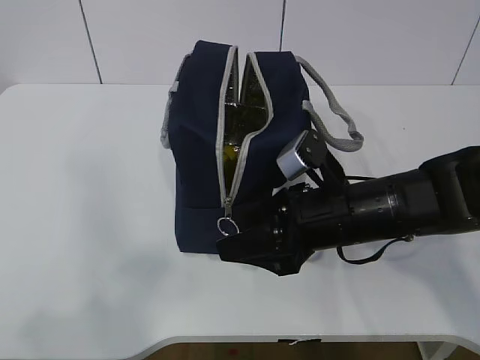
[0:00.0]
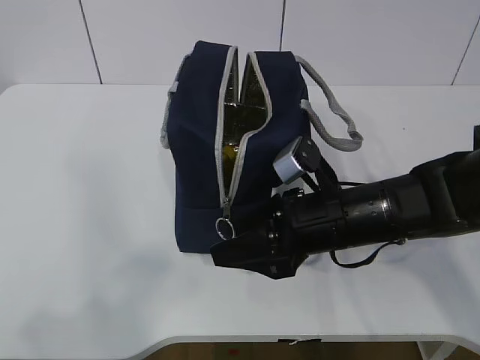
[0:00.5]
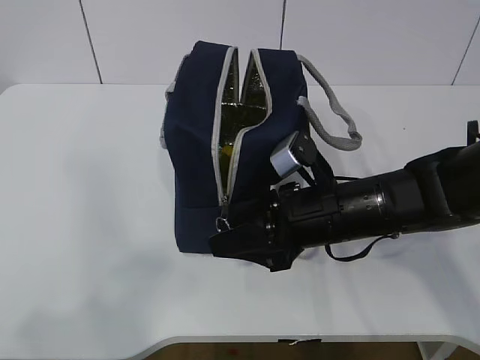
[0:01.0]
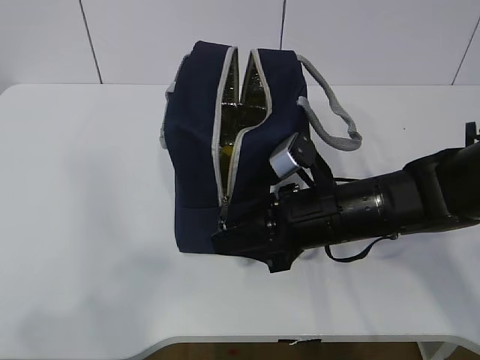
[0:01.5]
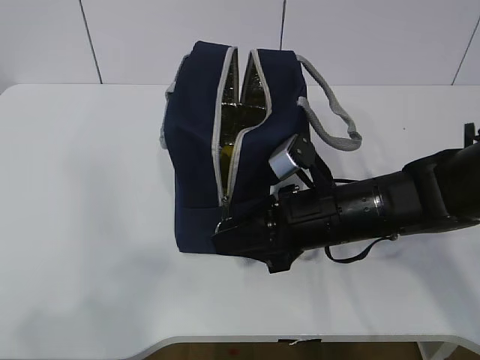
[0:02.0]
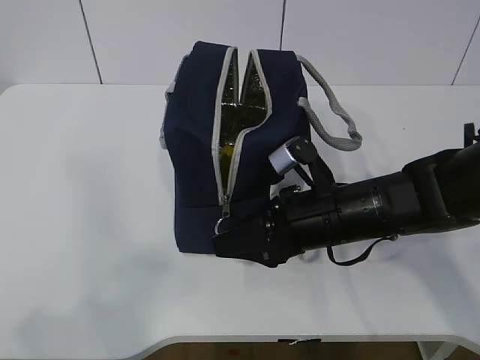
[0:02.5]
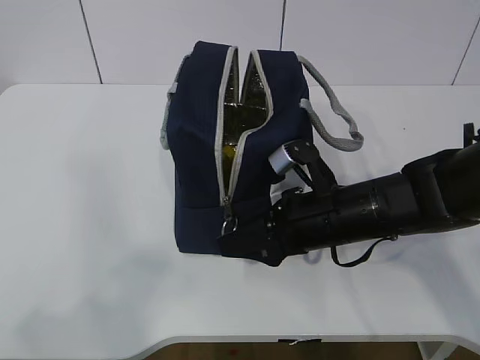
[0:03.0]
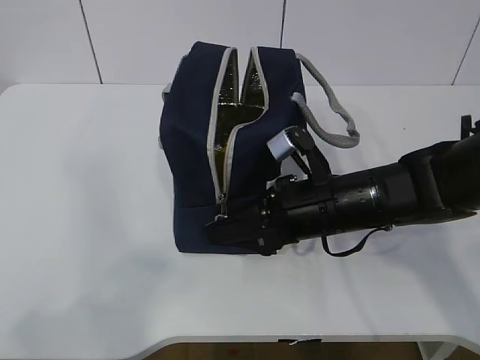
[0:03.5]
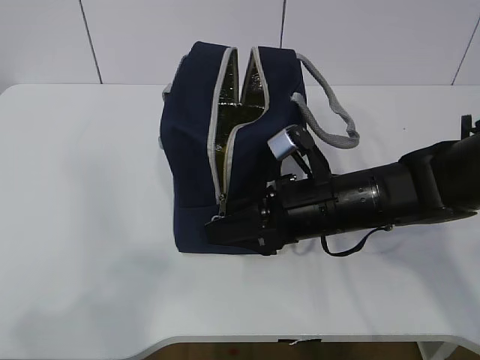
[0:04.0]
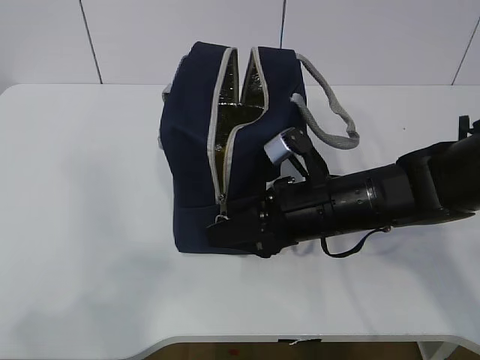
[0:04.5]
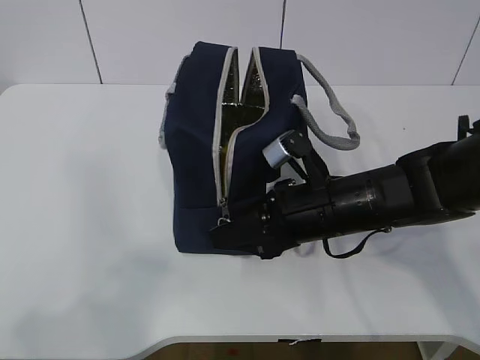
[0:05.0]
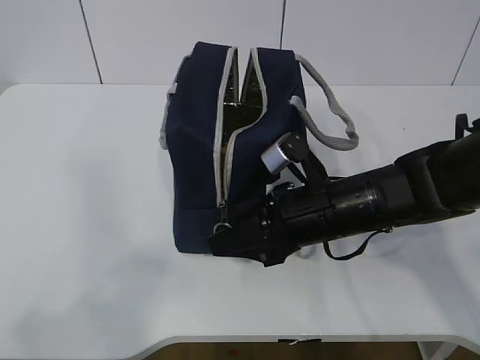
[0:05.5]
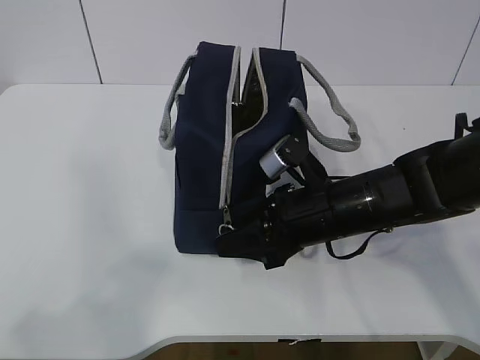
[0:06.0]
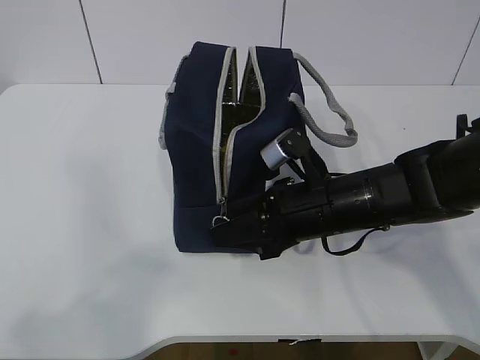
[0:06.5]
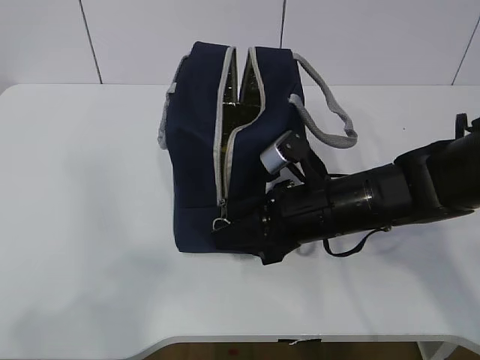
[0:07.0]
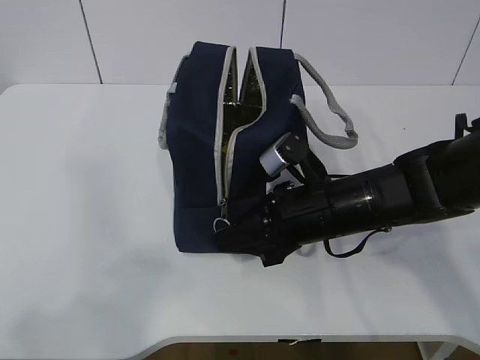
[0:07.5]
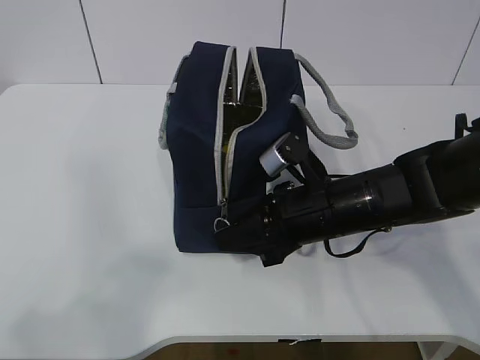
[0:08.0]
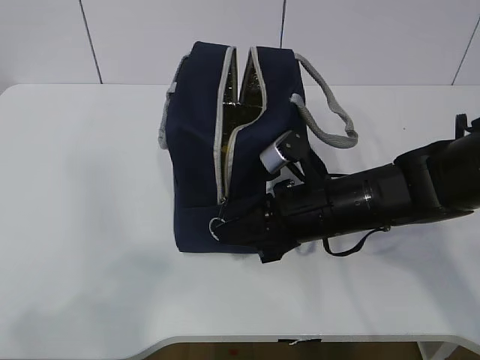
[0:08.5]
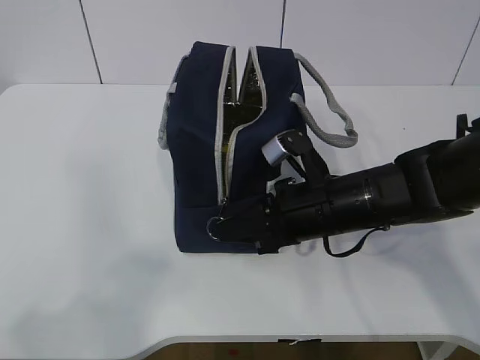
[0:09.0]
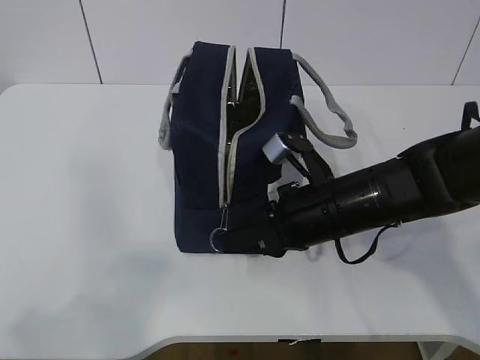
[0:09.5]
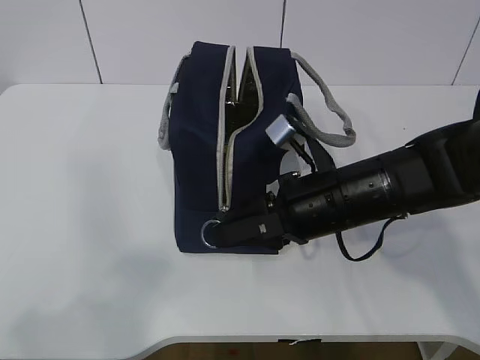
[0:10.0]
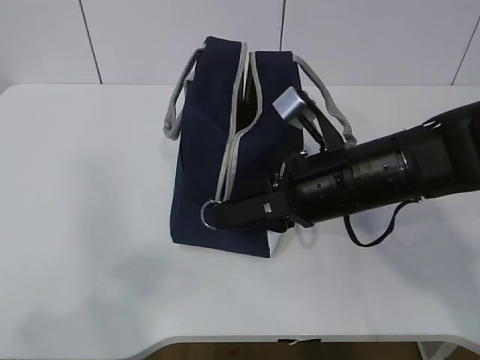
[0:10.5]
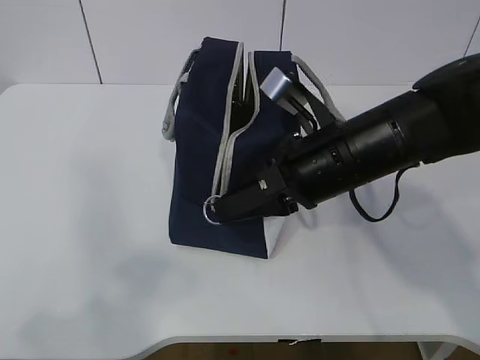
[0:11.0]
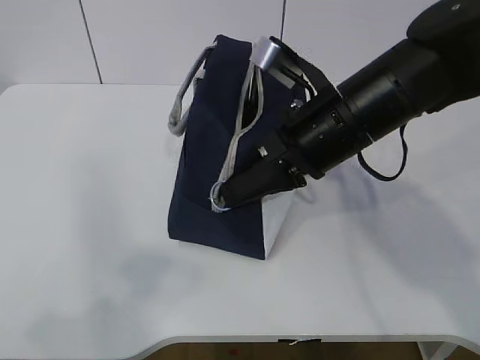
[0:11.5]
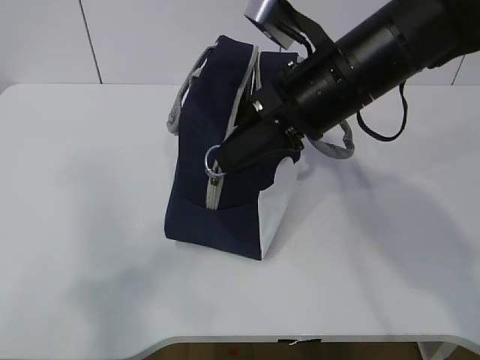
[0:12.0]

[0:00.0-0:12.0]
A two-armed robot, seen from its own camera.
Step, 0:05.5 to 0:09.0: Pull the zipper with your right hand.
0:00.0 to 0:02.0: The right gripper closes.
0:02.0 to 0:06.0: The grippers make only small movements.
0:06.0 to 0:08.0: The two grippers keep their place.
0:08.0 to 0:10.0: The grippers move only a little.
0:10.0 to 0:12.0: The right gripper moves upward, about 10 cm.

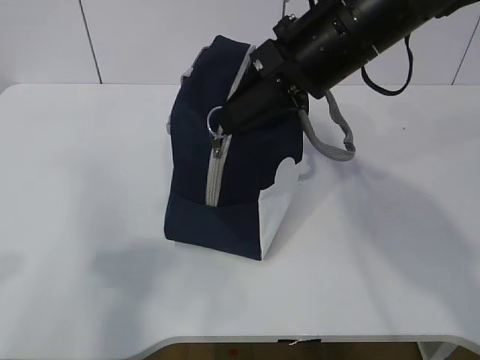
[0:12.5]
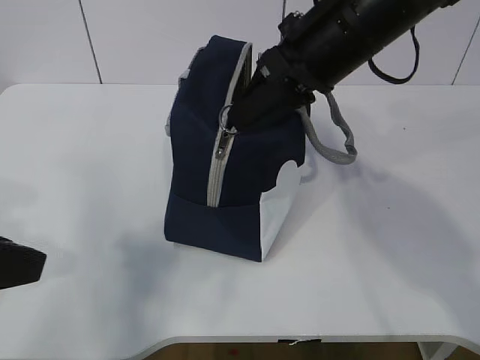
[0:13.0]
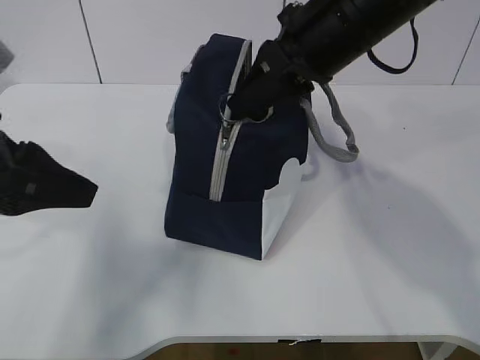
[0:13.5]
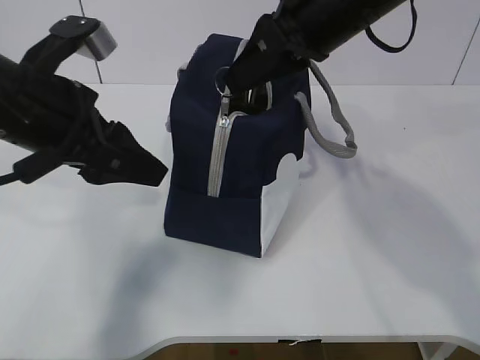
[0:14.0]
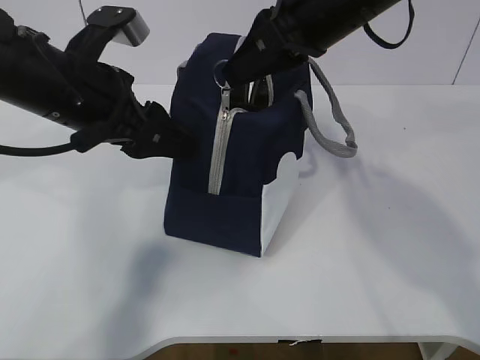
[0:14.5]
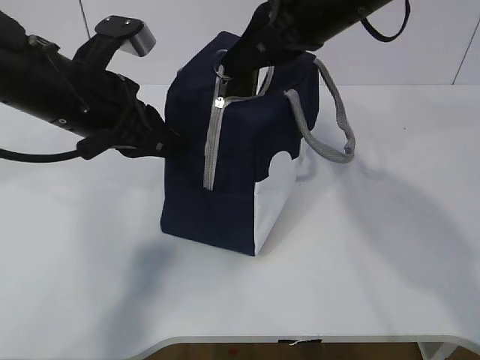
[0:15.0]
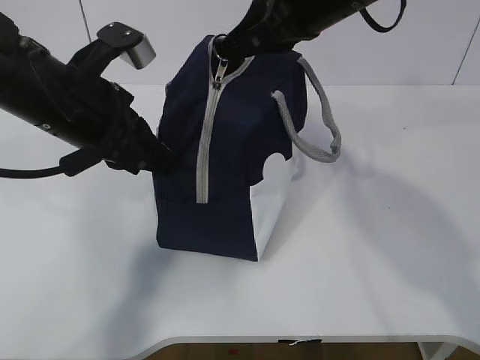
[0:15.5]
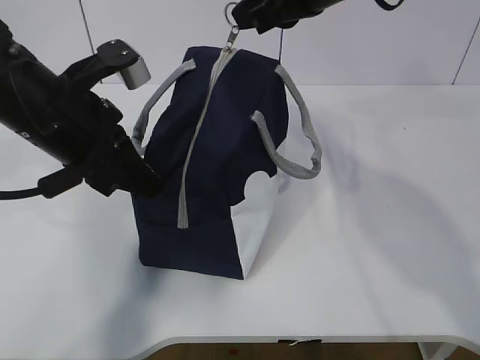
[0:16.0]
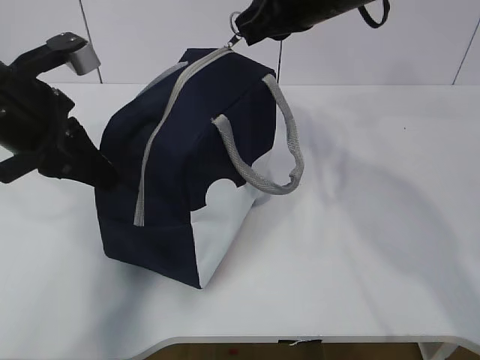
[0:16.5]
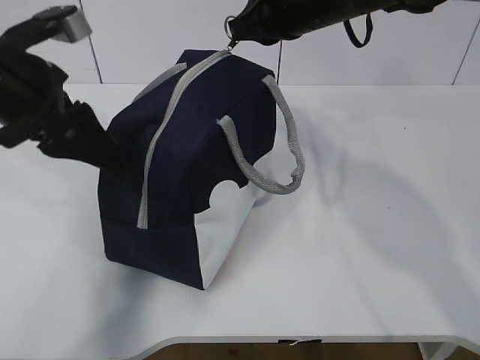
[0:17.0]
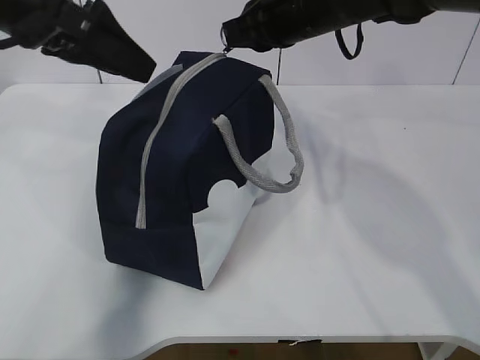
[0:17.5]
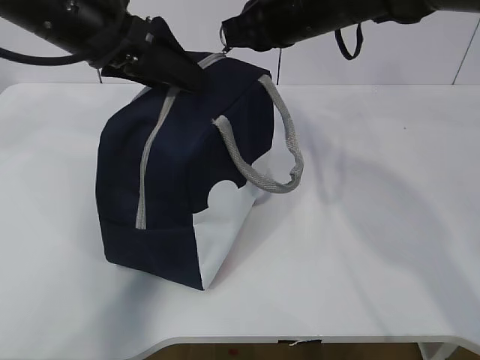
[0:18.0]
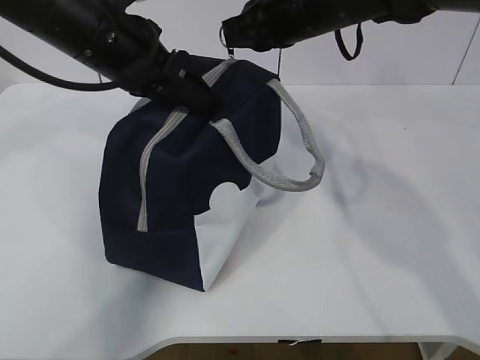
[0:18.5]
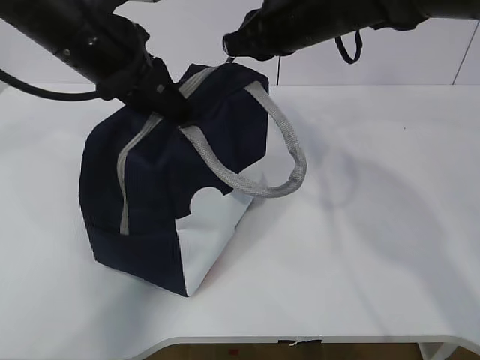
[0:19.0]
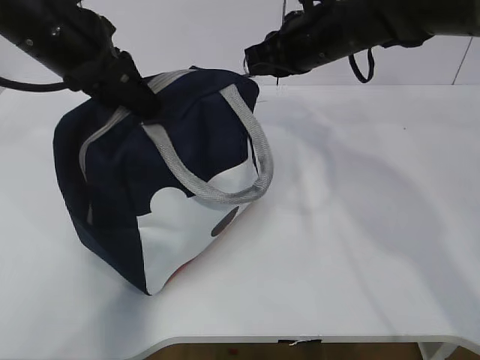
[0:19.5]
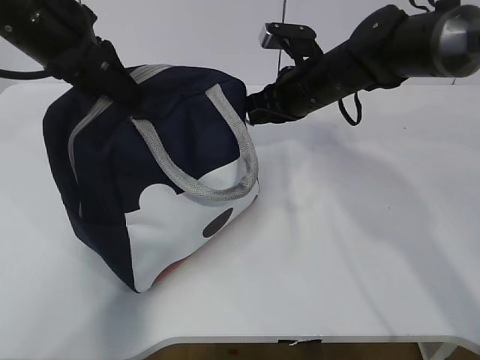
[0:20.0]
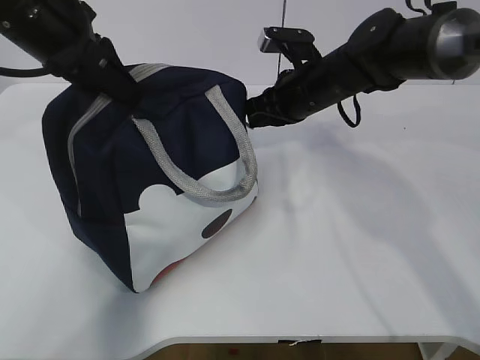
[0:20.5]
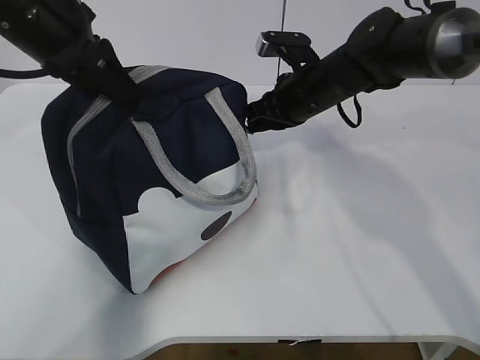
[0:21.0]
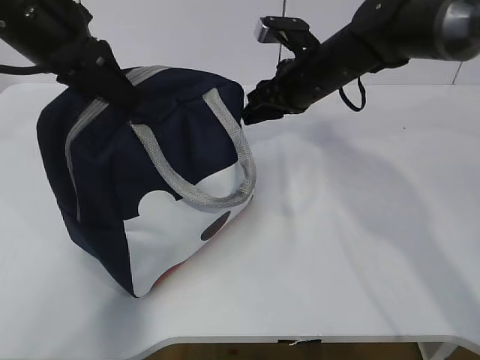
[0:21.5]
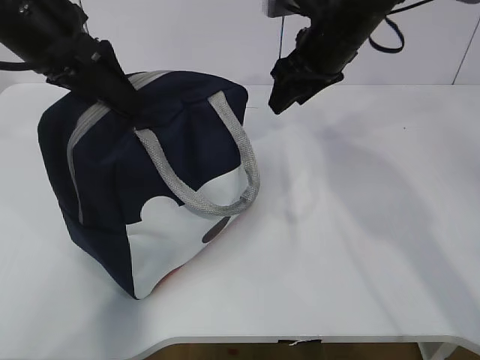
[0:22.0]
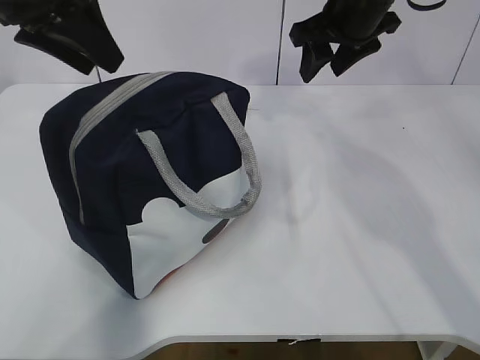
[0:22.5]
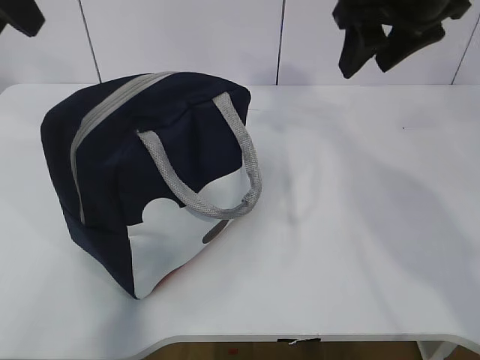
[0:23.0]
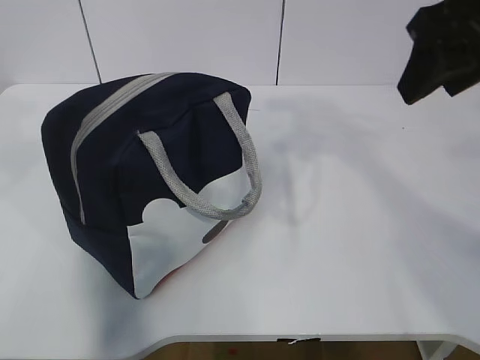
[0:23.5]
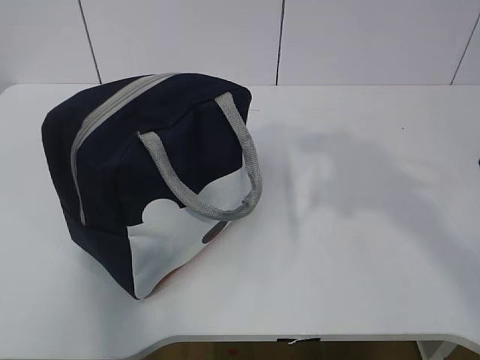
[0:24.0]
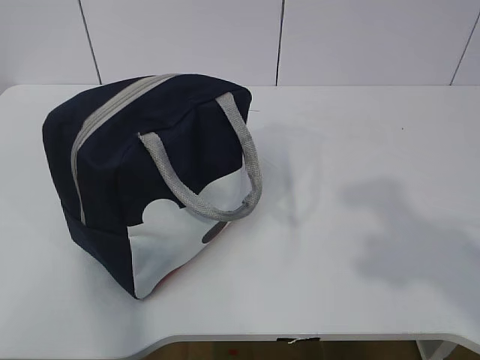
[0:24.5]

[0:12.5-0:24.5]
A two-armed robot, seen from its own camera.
0:12.5 to 0:14.5: The left gripper is displaced forward and to the right by roughly 25 cm.
0:14.5 to 0:16.5: The left gripper travels to the left by about 5 cm, and closes up. The right gripper moves forward, roughly 5 cm.
0:16.5 to 0:18.5: The left gripper shifts approximately 10 cm to the right and forward, and opens.
0:18.5 to 0:20.5: The right gripper moves downward, approximately 10 cm; the left gripper travels to the left by some 5 cm, and closes its fingers.
0:20.5 to 0:22.5: The left gripper opens up. The right gripper is displaced upward by some 10 cm, and opens.
0:22.5 to 0:24.5: The two grippers go about 35 cm backward.

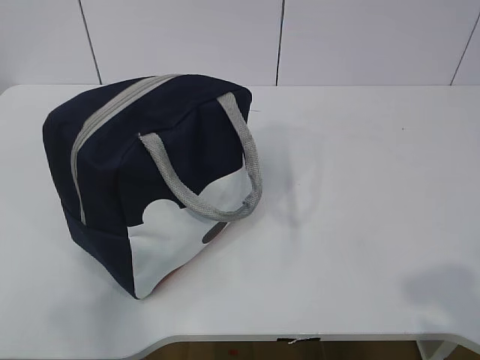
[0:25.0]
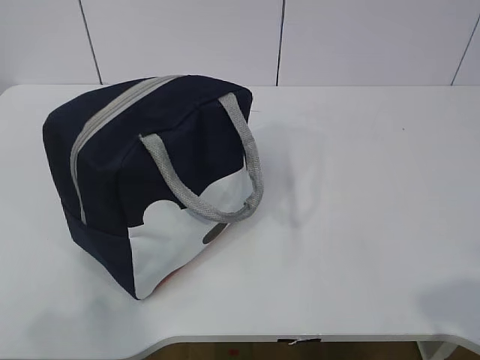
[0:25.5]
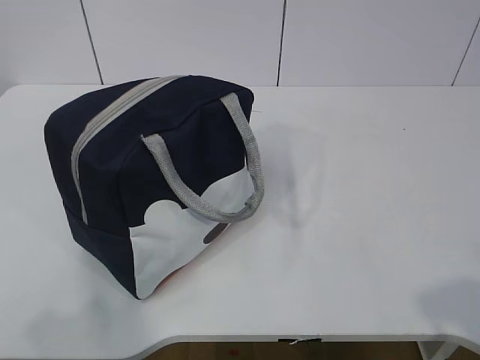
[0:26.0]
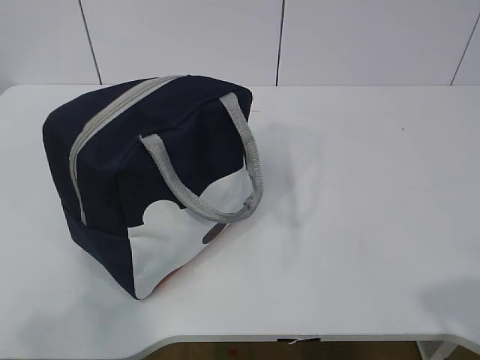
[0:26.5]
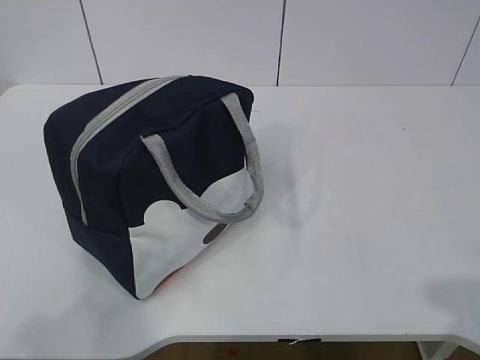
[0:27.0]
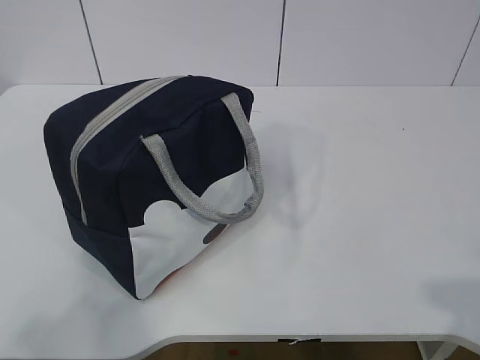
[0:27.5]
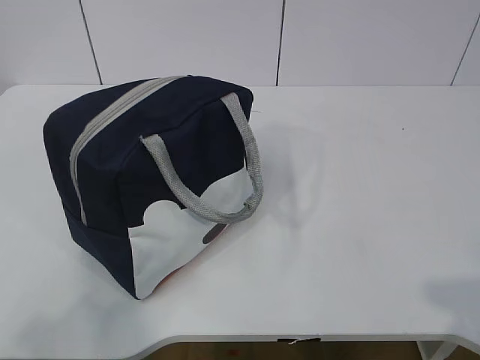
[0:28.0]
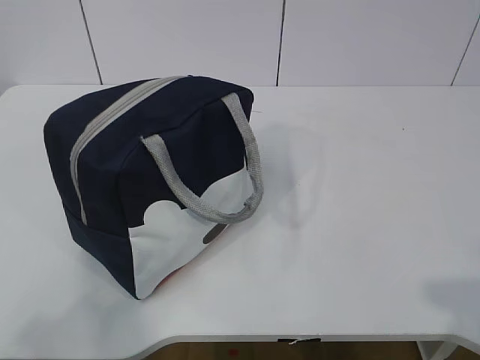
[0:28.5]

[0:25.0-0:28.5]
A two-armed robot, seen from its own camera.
0:25.0 to 0:27.0: There are only small adjustments of the grippers.
0:27.0 to 0:28.5: The two grippers keep their place.
